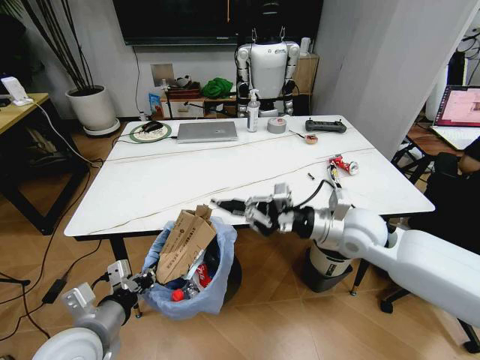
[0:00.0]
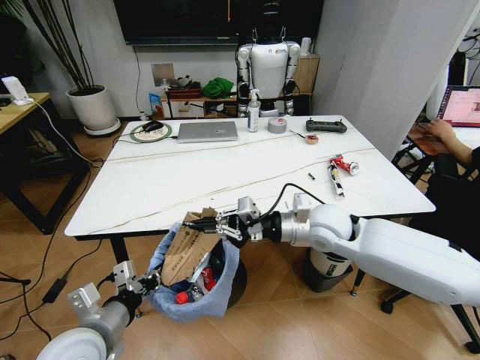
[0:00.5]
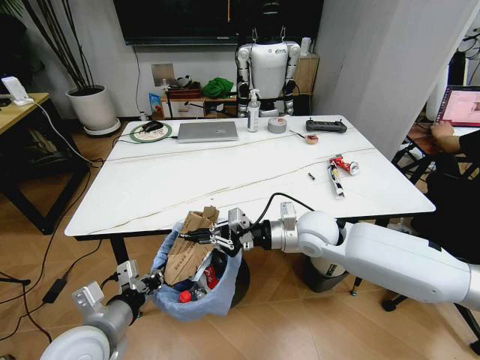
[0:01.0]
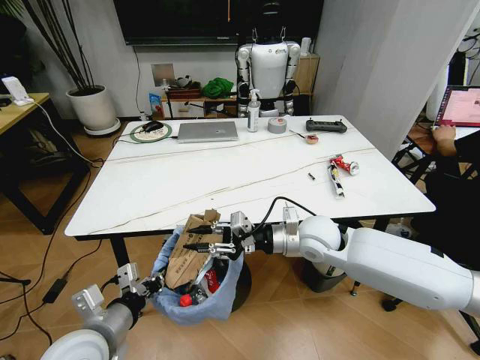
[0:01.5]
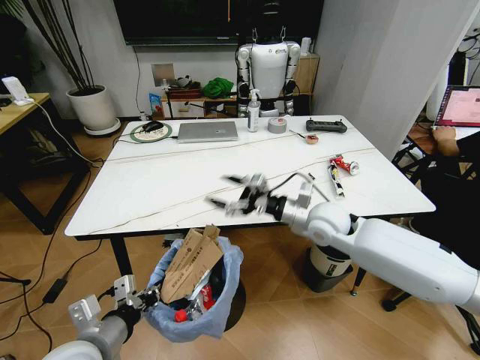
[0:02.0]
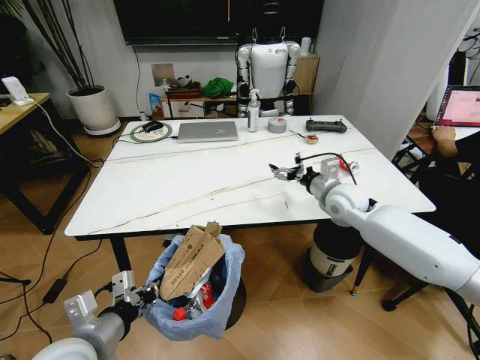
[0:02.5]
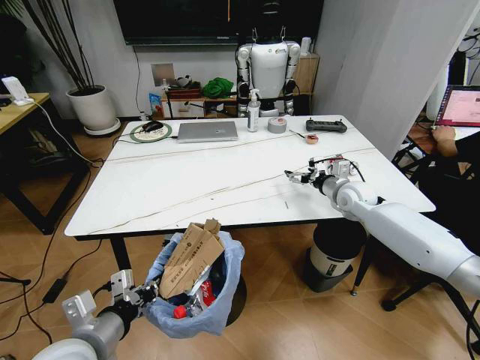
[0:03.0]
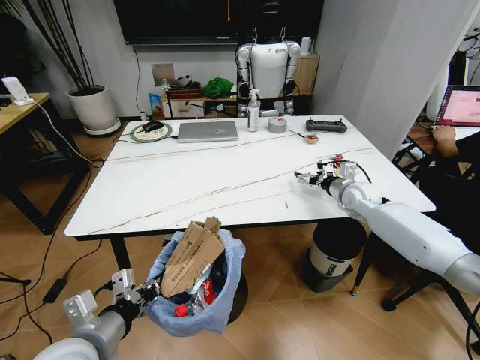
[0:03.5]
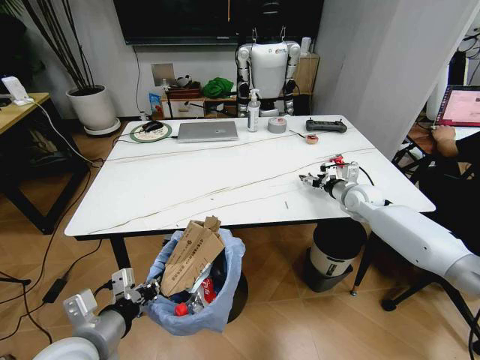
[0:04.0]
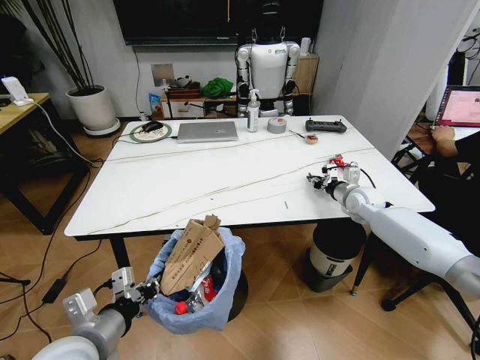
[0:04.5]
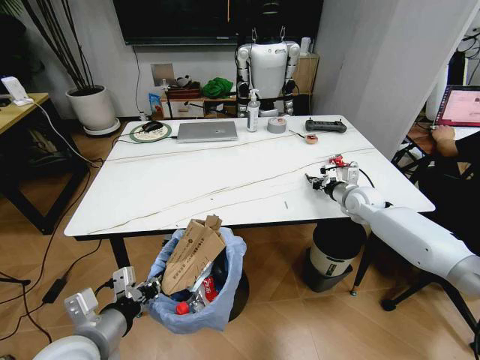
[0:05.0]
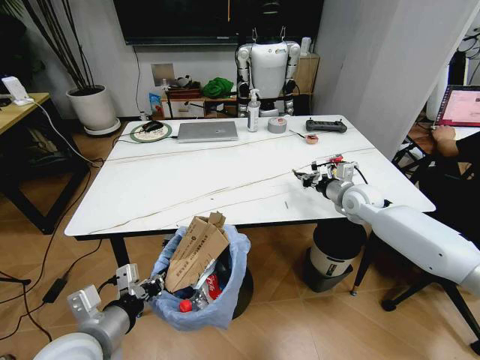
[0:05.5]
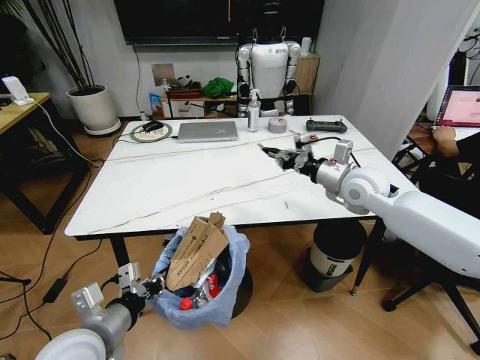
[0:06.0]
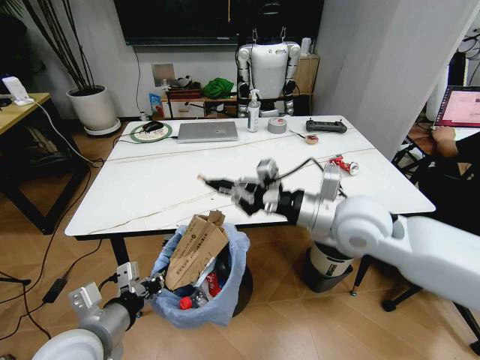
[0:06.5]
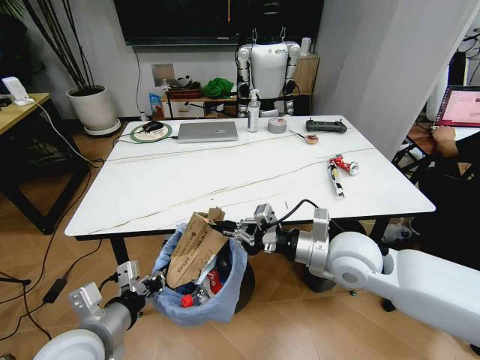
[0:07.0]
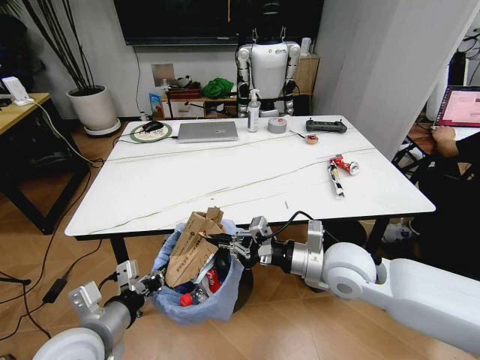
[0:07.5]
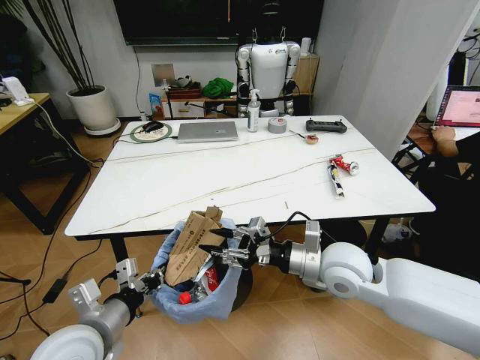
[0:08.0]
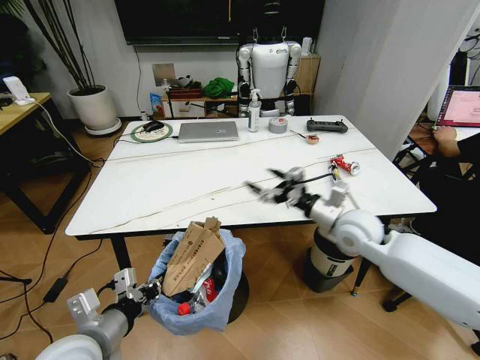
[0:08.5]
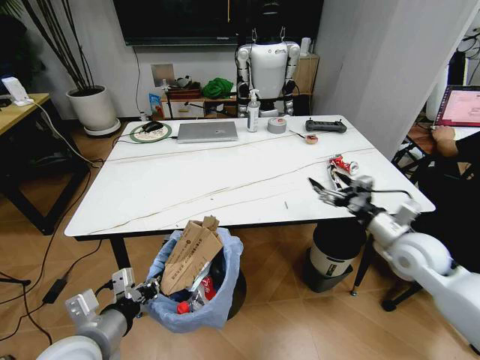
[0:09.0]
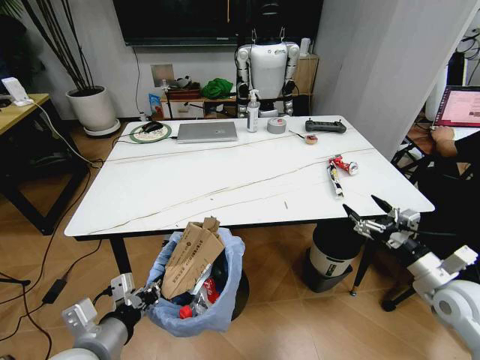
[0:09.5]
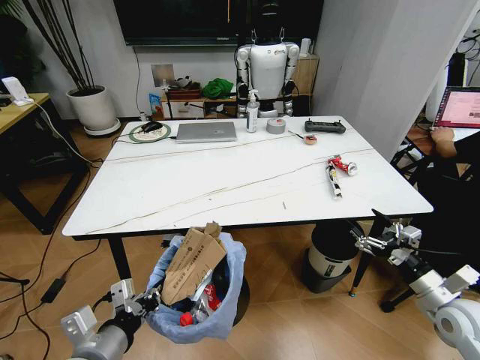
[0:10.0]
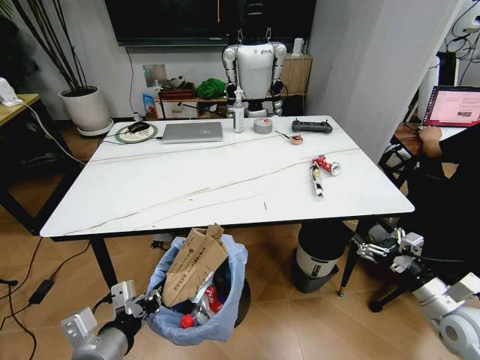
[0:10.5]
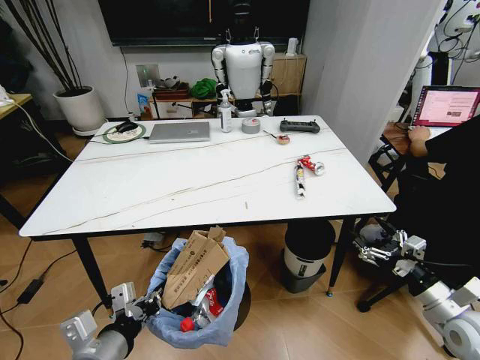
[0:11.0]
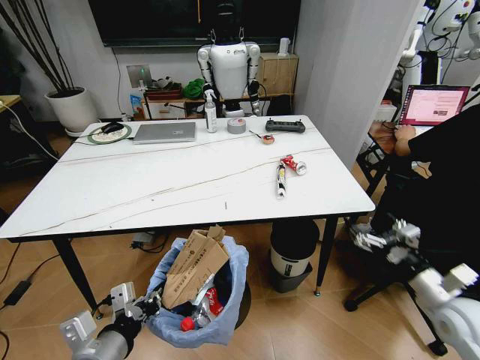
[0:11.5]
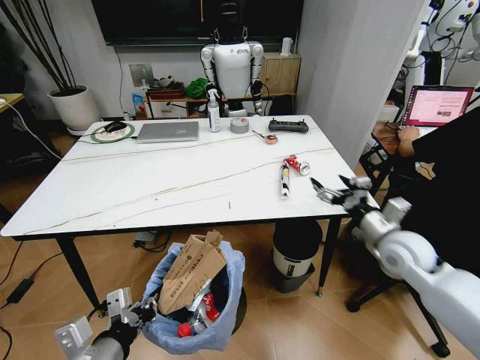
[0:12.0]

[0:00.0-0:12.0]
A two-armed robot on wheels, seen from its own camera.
Task of the whole recording: Pick up the trash bin and place the trash from the table into it.
0:00.0 to 0:02.0: The right gripper travels to the left by roughly 5 cm, and opens up.
0:02.0 to 0:04.0: The right gripper goes some 20 cm to the right and forward.
0:04.0 to 0:06.0: The right gripper heads upward, to the left and backward, covering some 15 cm, and closes its fingers.
0:06.0 to 0:08.0: The right gripper is displaced backward, to the left and downward by roughly 20 cm, and opens its fingers.
0:08.0 to 0:10.0: The right gripper heads to the right, covering about 25 cm, and opens up.
0:10.0 to 0:12.0: The right gripper is displaced forward, to the left and upward by some 15 cm.

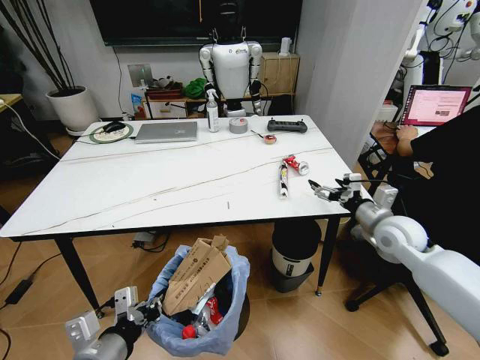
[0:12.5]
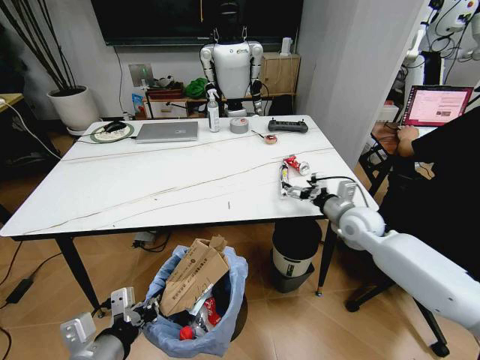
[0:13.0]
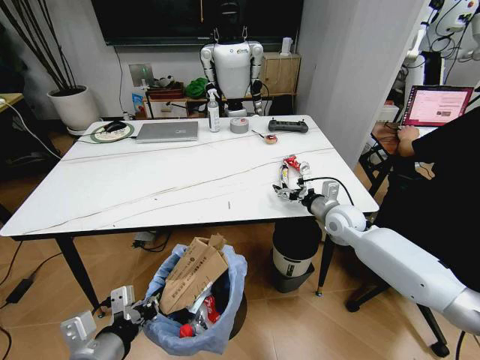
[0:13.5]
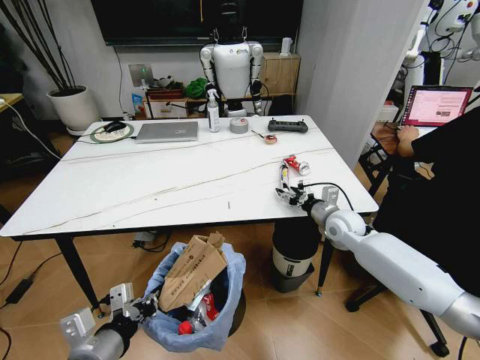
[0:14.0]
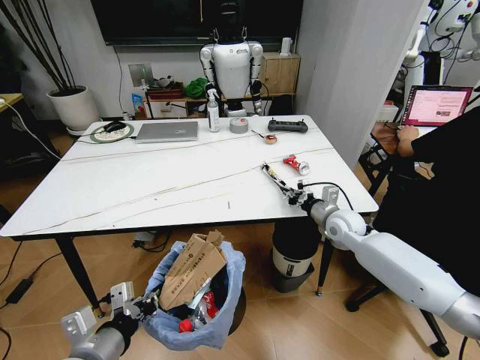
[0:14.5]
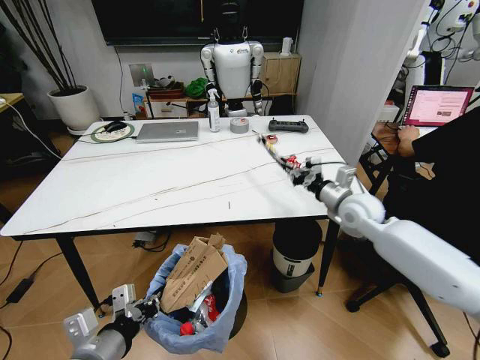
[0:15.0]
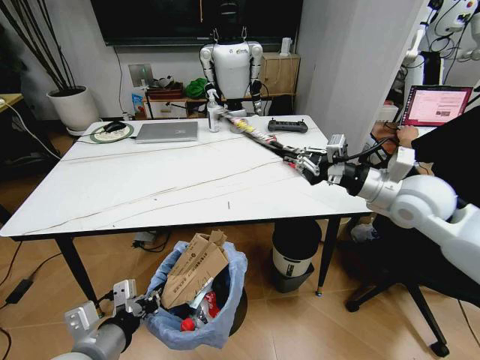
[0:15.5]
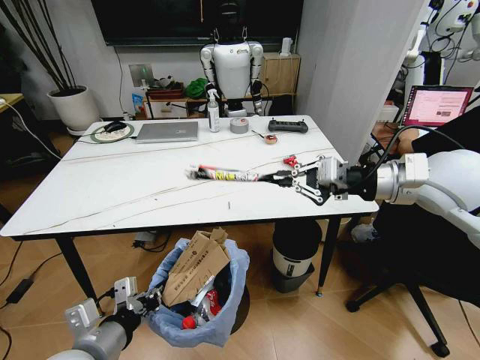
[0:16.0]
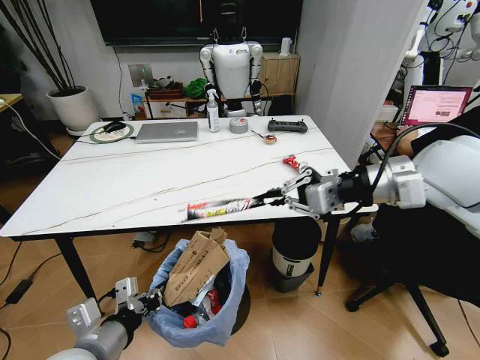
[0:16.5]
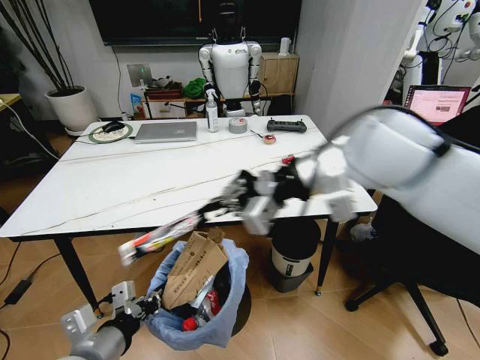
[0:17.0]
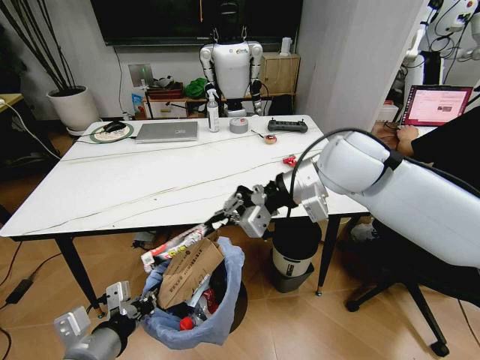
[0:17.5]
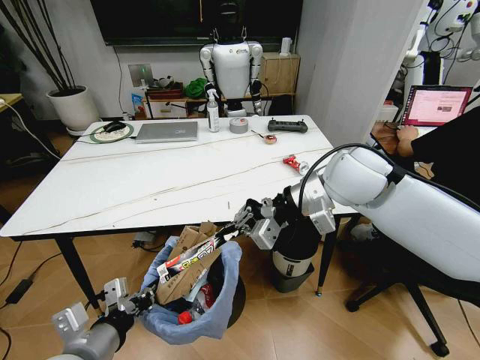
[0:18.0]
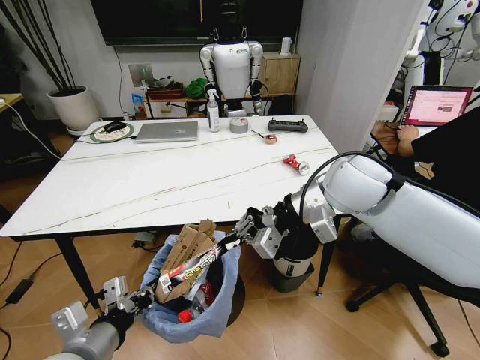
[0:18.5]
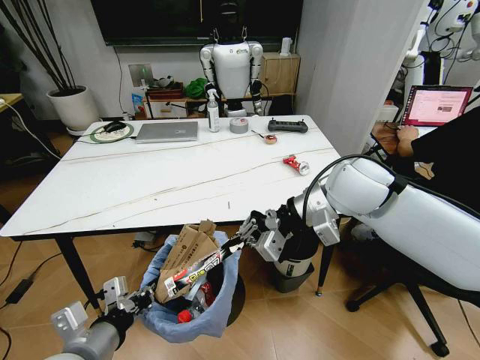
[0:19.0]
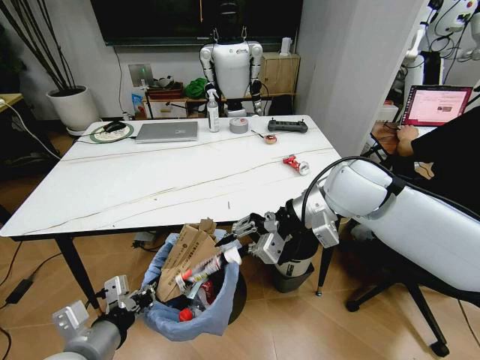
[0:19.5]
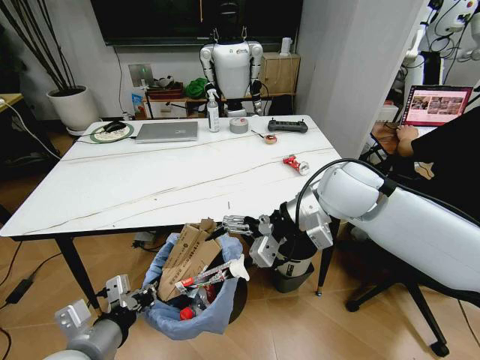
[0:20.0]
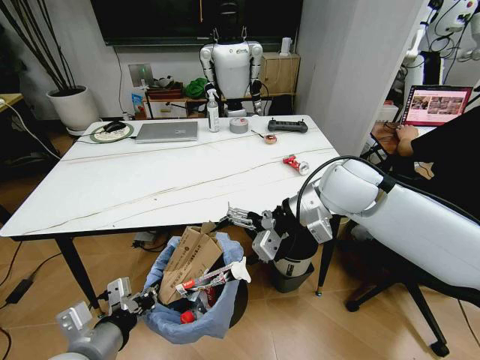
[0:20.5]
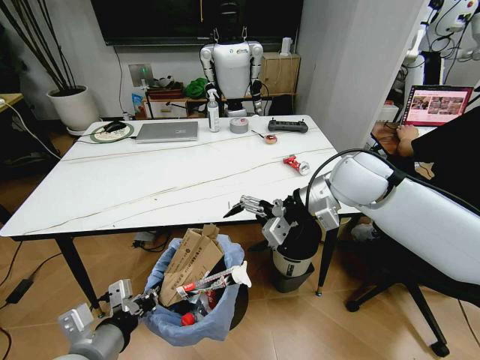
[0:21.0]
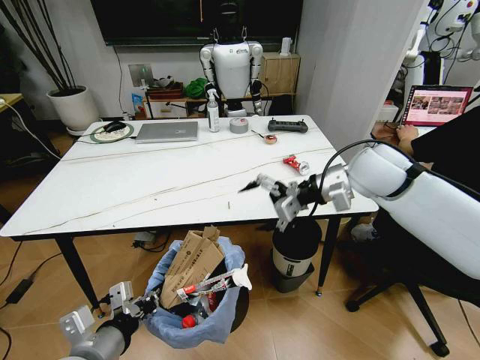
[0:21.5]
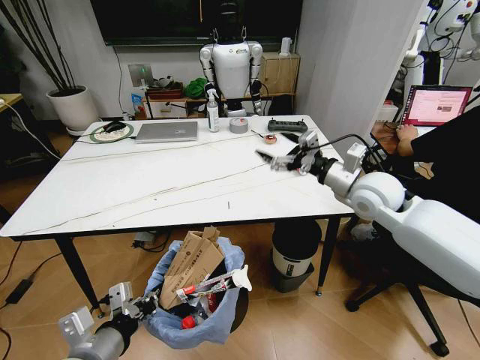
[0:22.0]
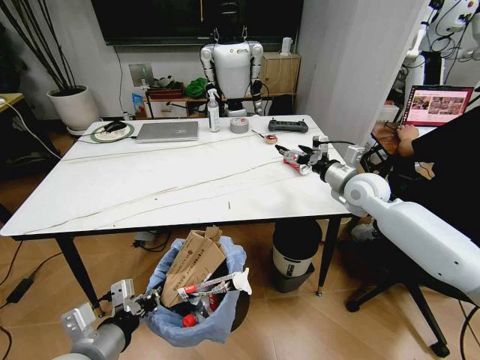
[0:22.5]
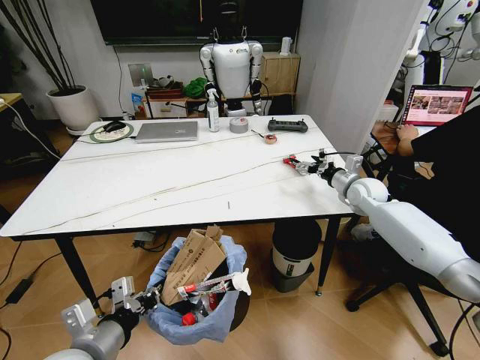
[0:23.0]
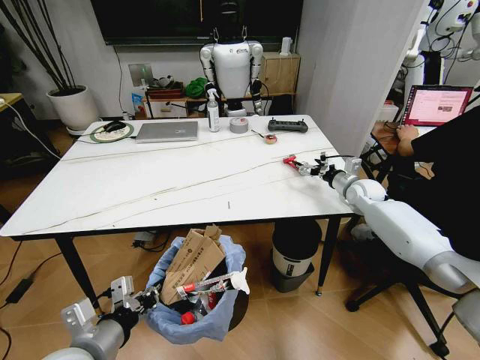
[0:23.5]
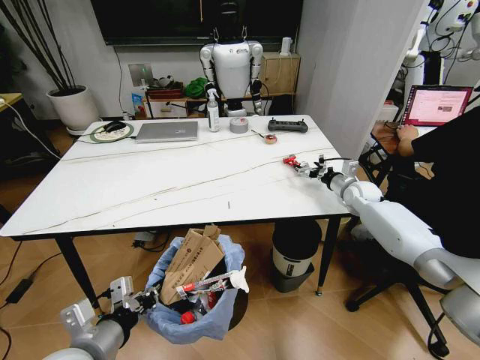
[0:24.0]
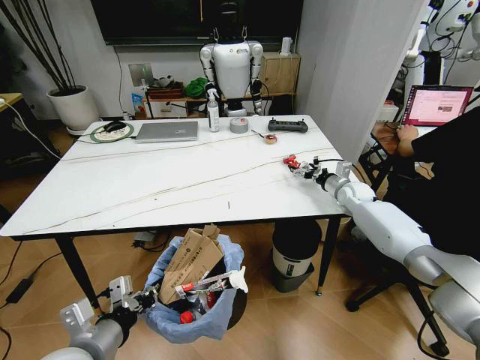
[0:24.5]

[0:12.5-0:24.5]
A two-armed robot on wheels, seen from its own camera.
Task of the whole recording: Pick up the trash bin and place the trash from the table into it.
0:12.5 to 0:14.5: The right gripper travels to the left, forward and downward by roughly 15 cm, and closes its fingers.
0:14.5 to 0:16.5: The right gripper shifts some 30 cm upward and backward.
0:16.5 to 0:18.5: The right gripper goes approximately 10 cm to the left and downward.
0:18.5 to 0:20.5: The right gripper opens up.
0:20.5 to 0:22.5: The right gripper shifts roughly 20 cm to the right, downward and forward.
0:22.5 to 0:24.5: The right gripper shifts about 15 cm downward, forward and to the right.

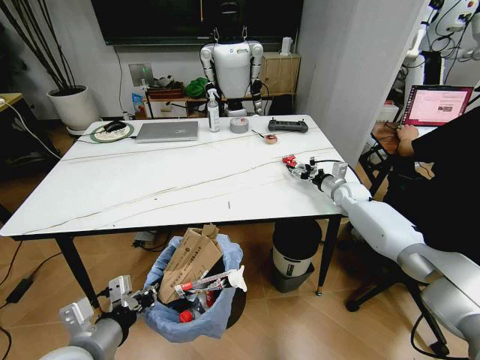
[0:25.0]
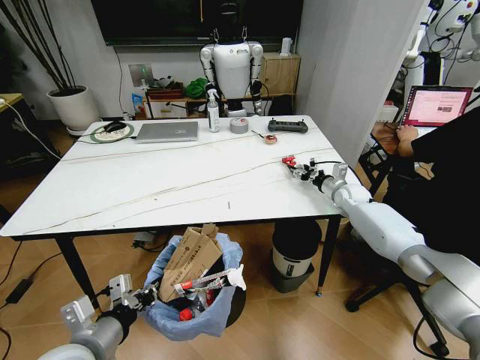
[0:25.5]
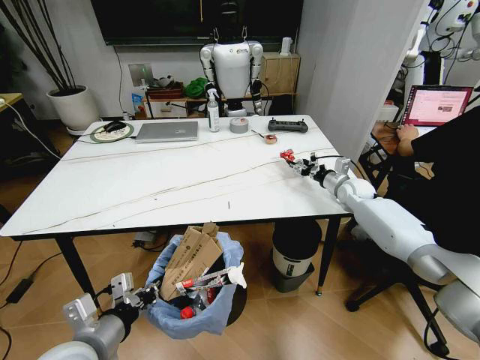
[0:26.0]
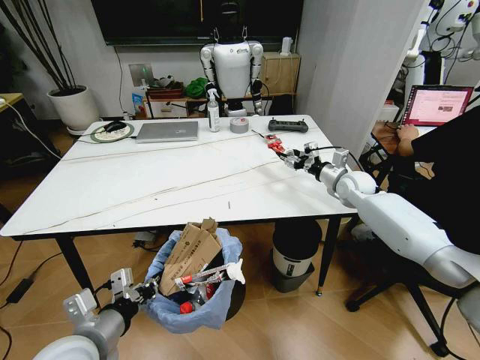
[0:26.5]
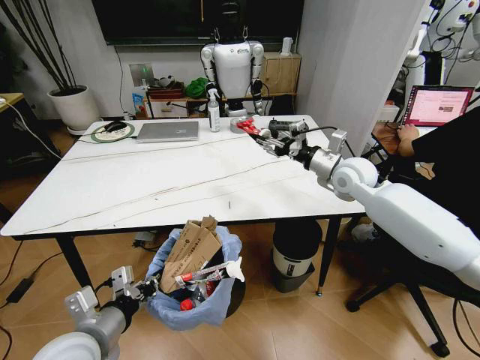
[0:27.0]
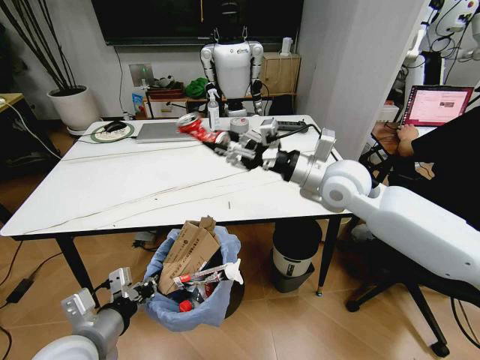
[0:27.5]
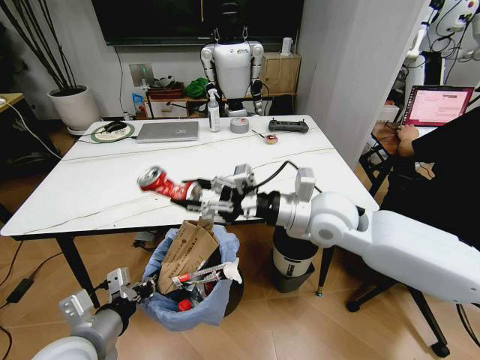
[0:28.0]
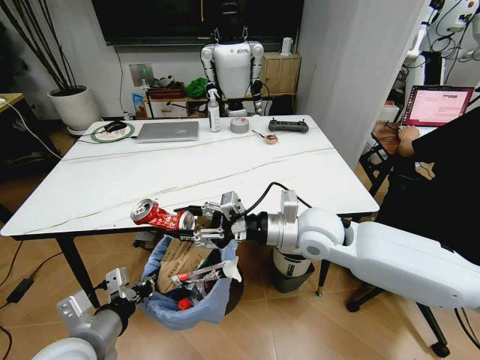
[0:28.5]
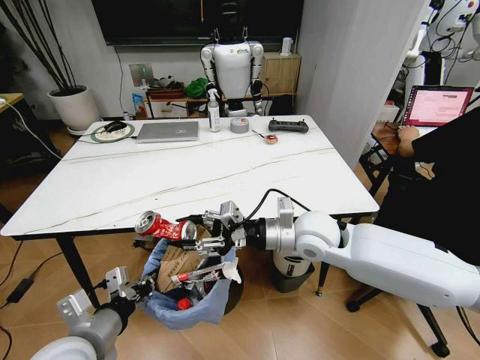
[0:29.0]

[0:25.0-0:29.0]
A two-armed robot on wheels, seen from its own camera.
Task of the whole recording: Pick up the trash bin and place the trash from the table into it.
0:25.0 to 0:27.0: The right gripper goes approximately 20 cm upward, backward and to the left.
0:27.0 to 0:29.0: The right gripper is displaced backward and to the left by some 20 cm.
